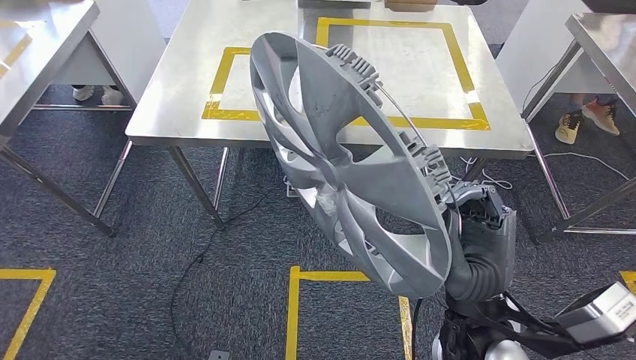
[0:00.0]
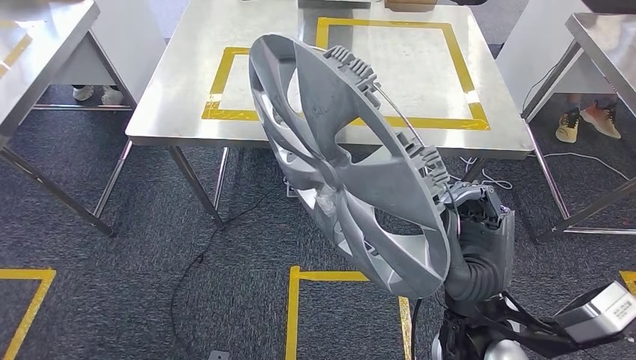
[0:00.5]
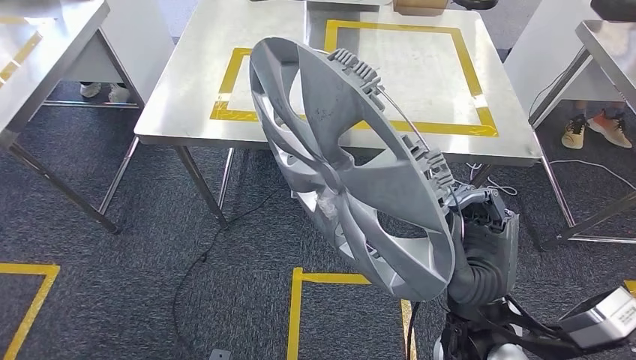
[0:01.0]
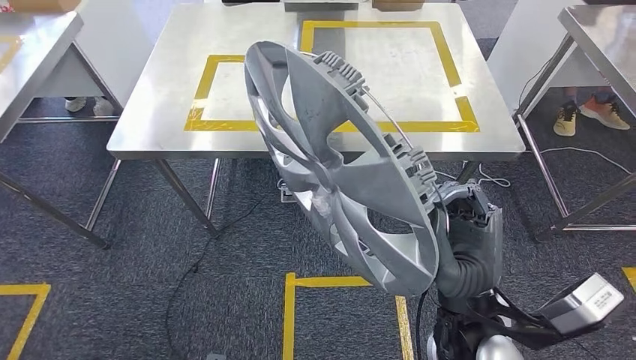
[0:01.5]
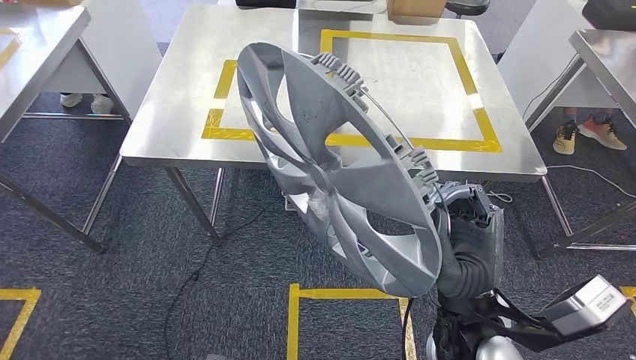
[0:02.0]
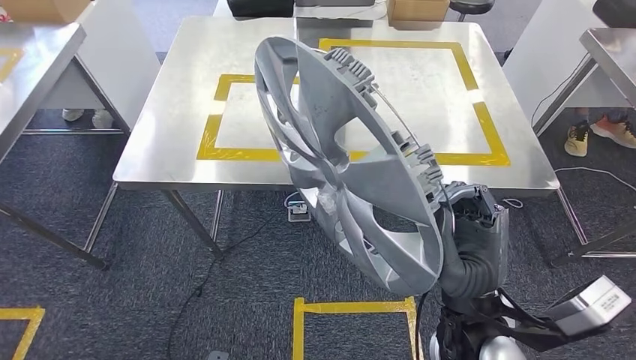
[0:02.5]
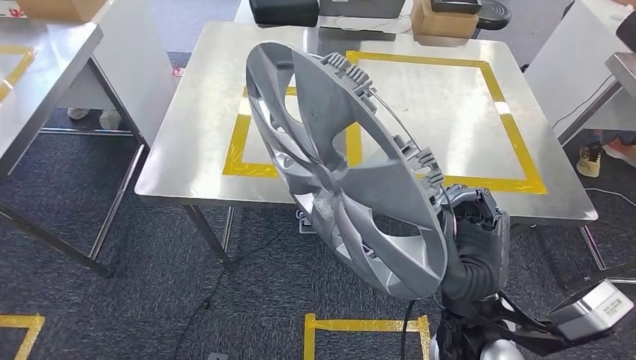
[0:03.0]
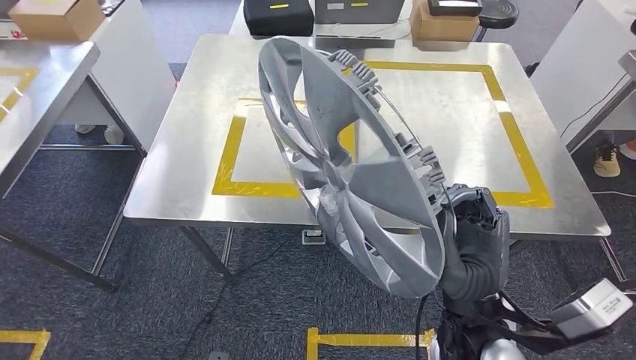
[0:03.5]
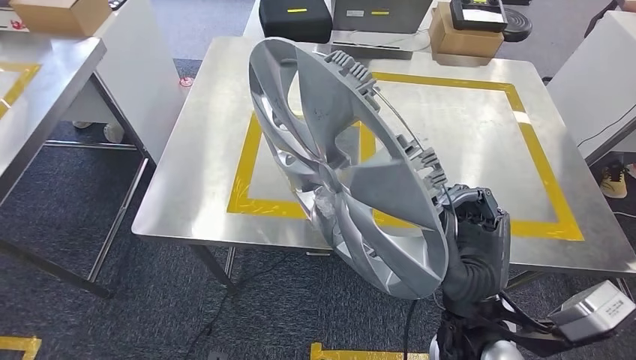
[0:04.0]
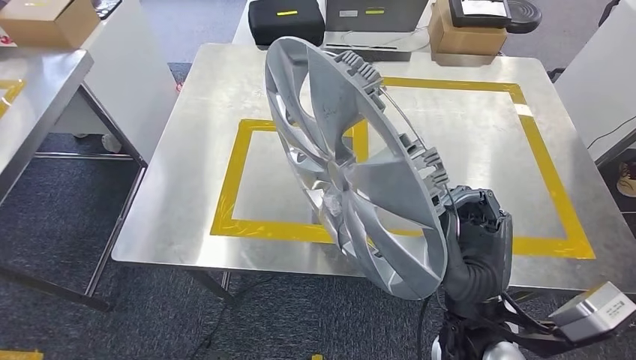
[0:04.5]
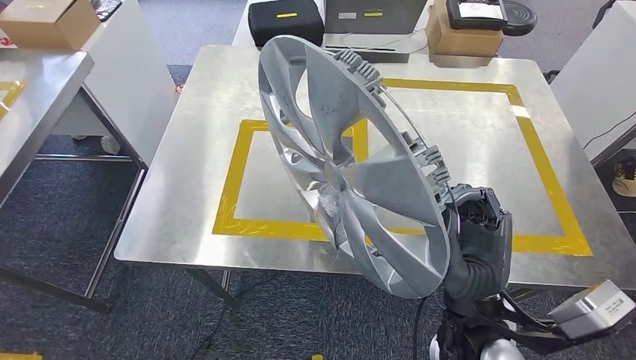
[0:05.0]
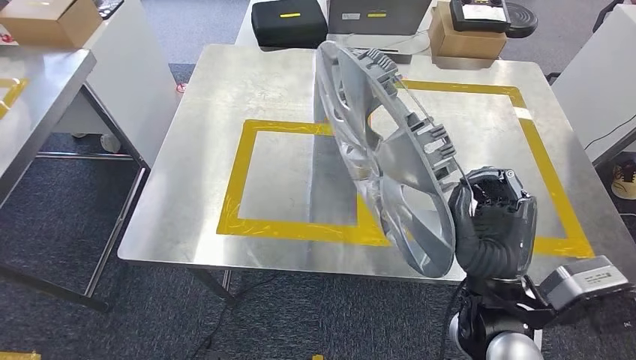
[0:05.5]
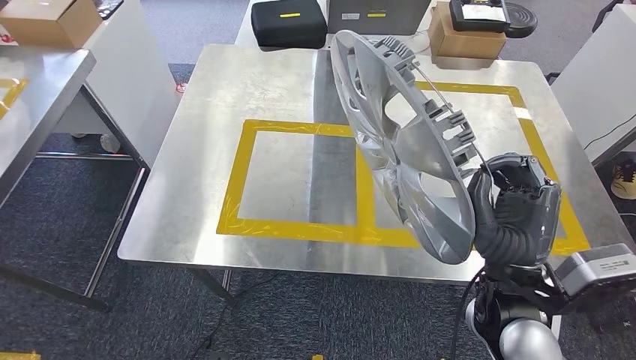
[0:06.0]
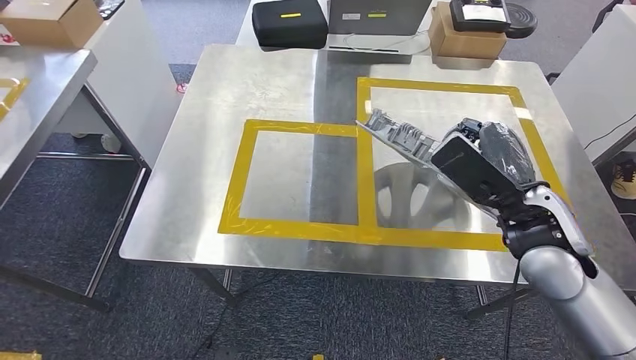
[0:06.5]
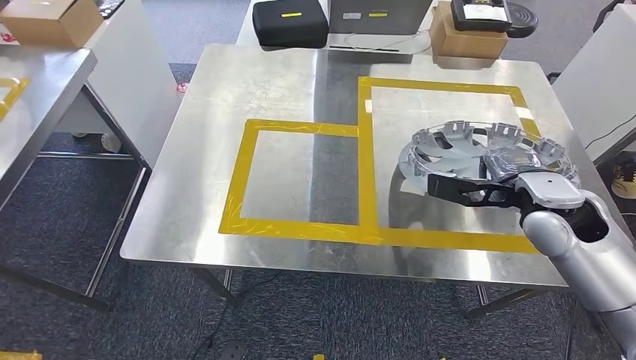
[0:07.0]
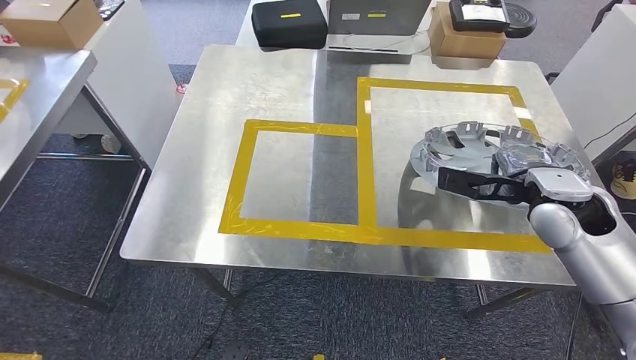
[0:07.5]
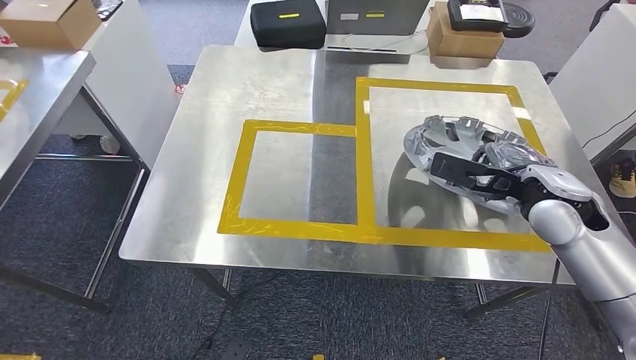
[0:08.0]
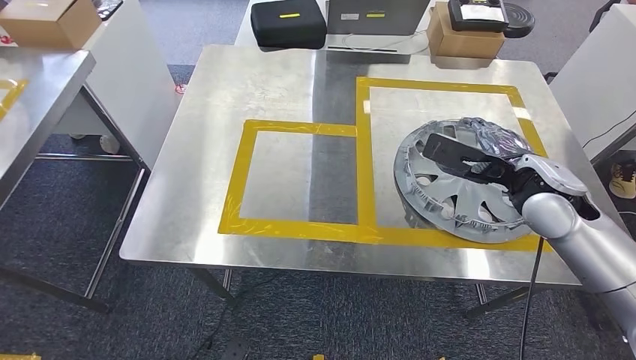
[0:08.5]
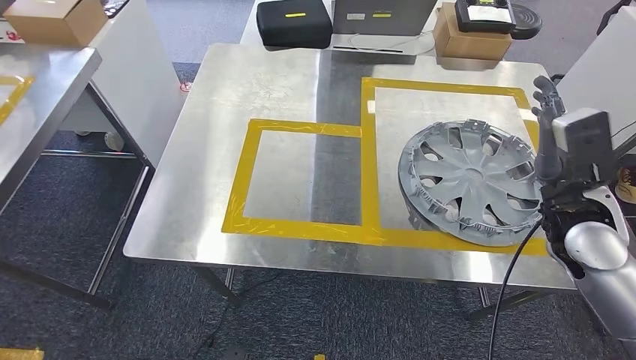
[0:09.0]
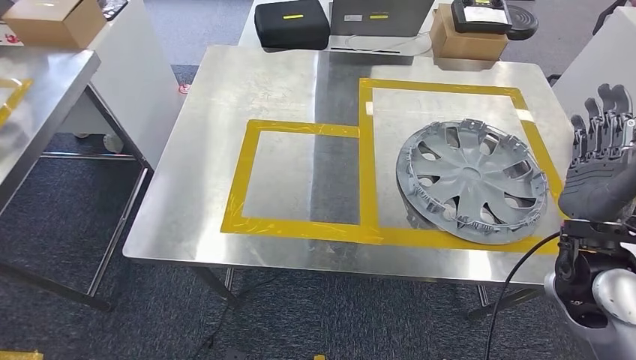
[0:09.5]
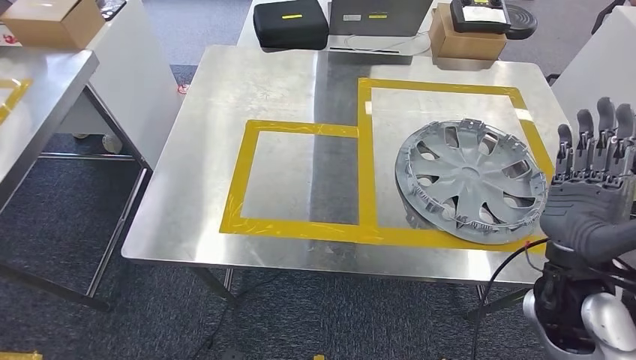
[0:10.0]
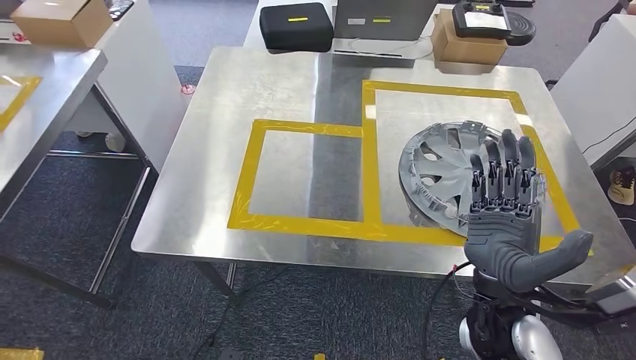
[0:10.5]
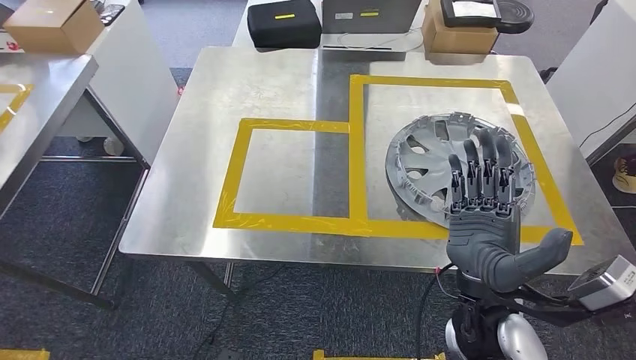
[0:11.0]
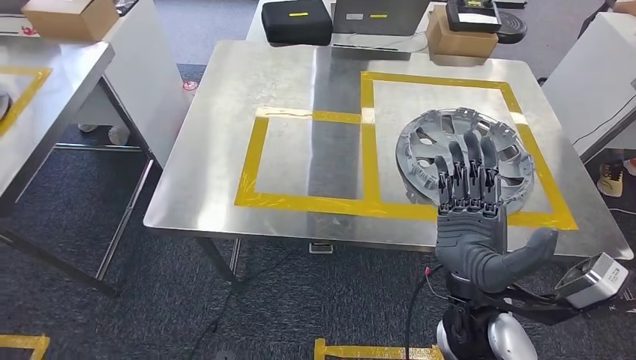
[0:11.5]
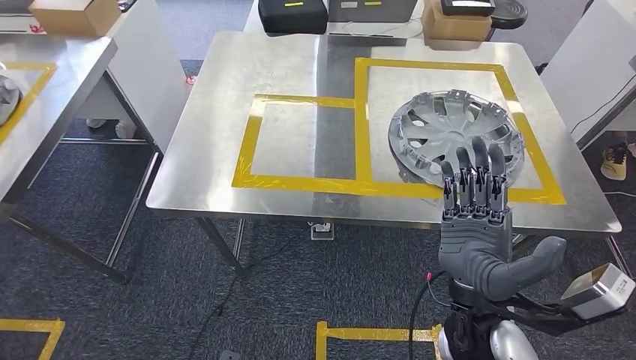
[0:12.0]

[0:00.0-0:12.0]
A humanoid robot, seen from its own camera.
Step, 0:00.0 to 0:11.5: Insert the small component into the corresponding slot on the workbench.

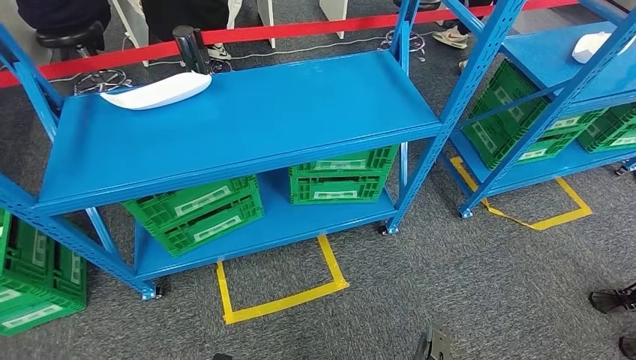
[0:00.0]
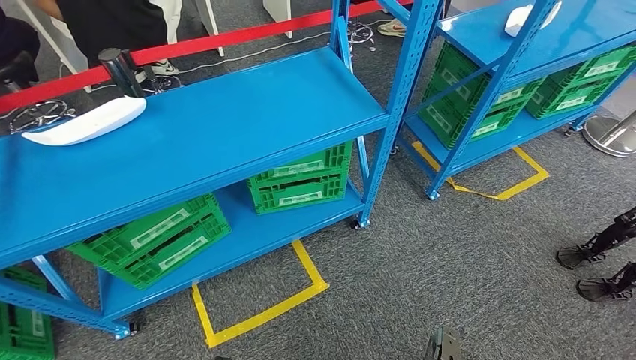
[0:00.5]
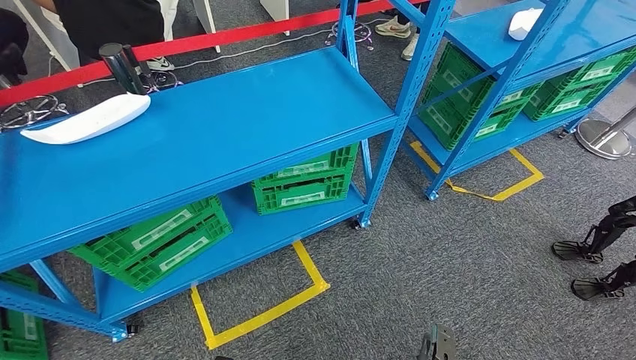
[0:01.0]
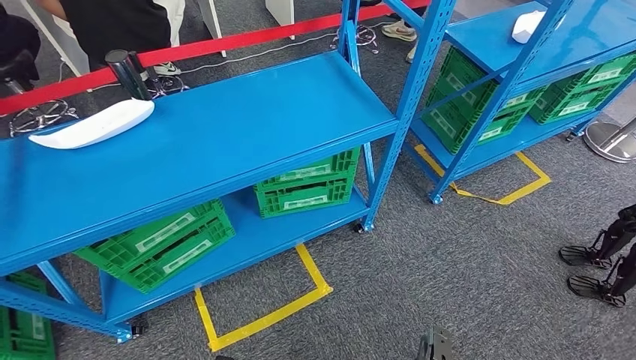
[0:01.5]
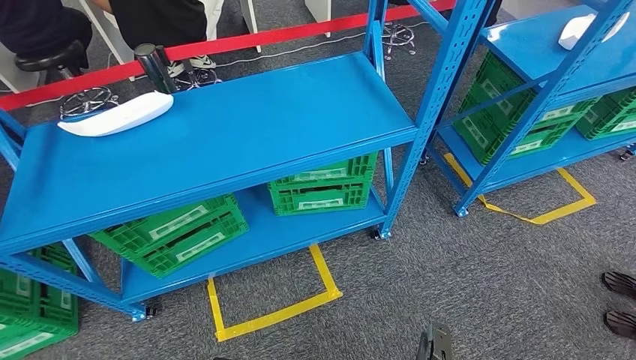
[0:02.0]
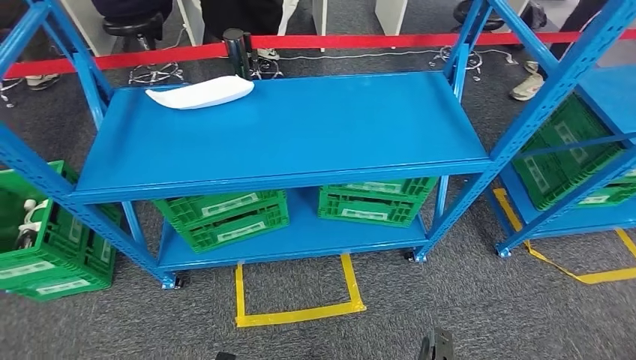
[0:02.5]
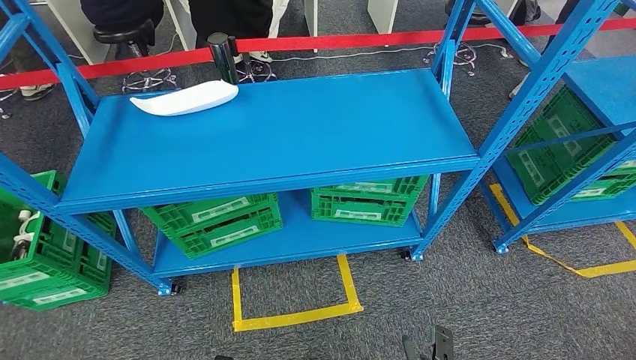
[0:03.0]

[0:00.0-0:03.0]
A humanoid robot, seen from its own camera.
Step, 0:00.0 to 0:03.0: Move to the initial position at the workbench.
